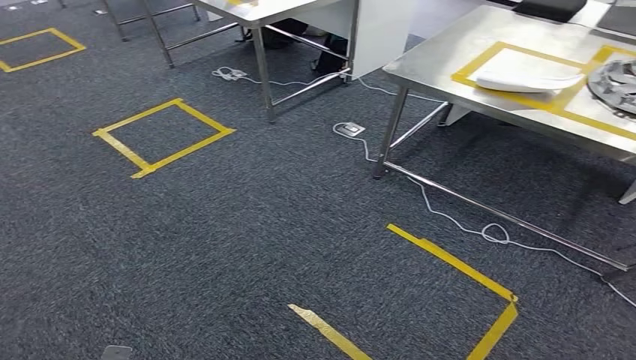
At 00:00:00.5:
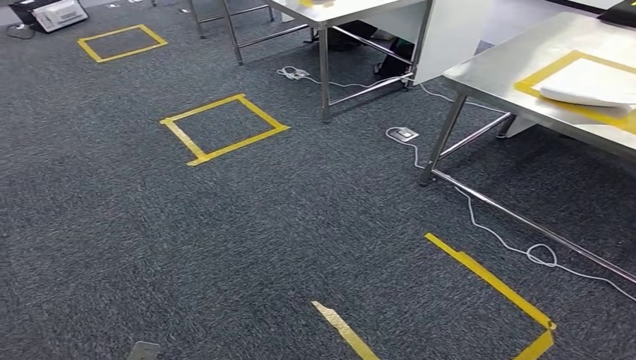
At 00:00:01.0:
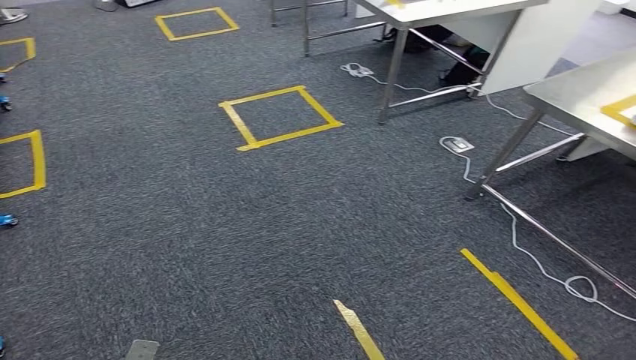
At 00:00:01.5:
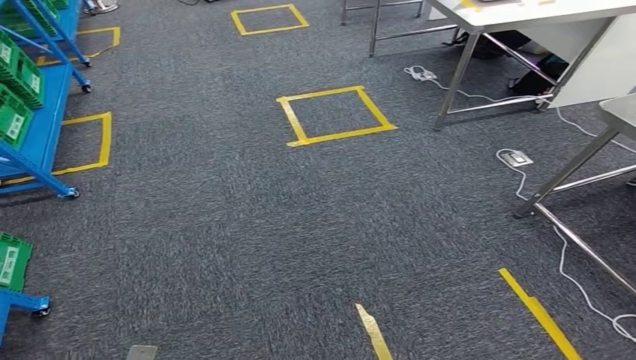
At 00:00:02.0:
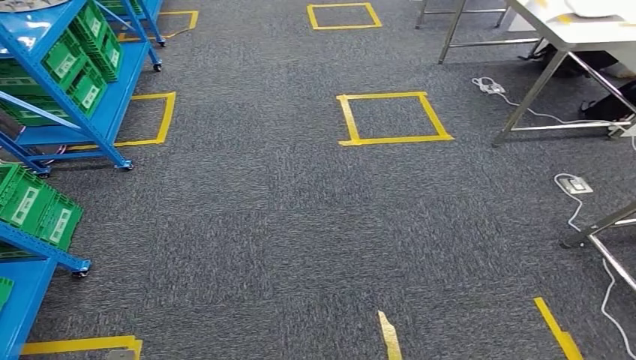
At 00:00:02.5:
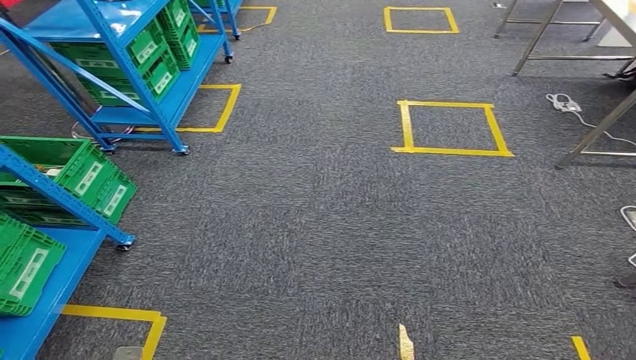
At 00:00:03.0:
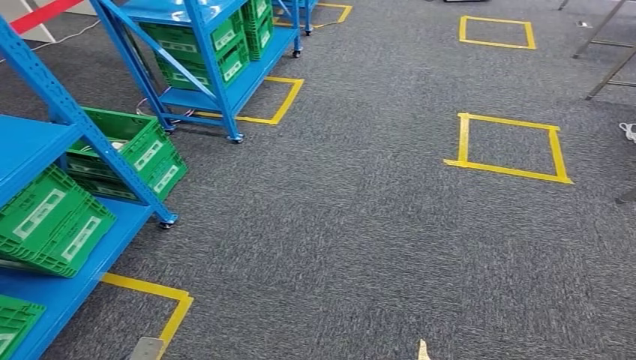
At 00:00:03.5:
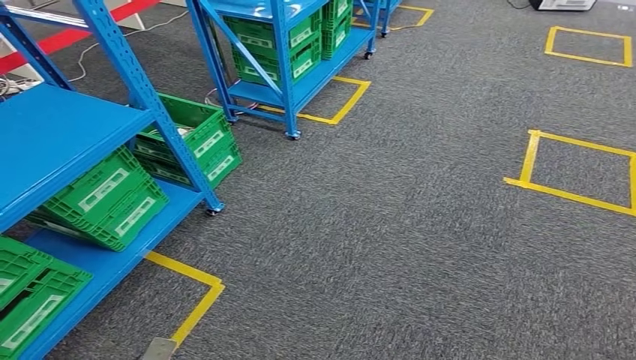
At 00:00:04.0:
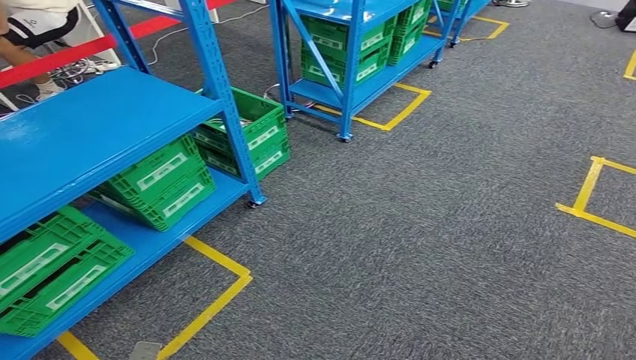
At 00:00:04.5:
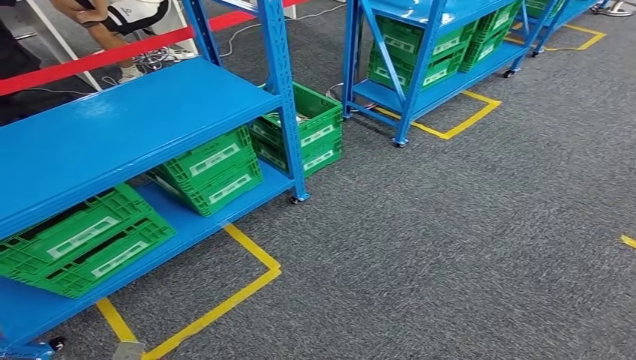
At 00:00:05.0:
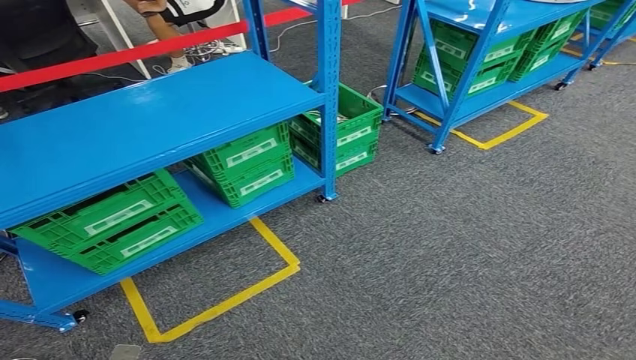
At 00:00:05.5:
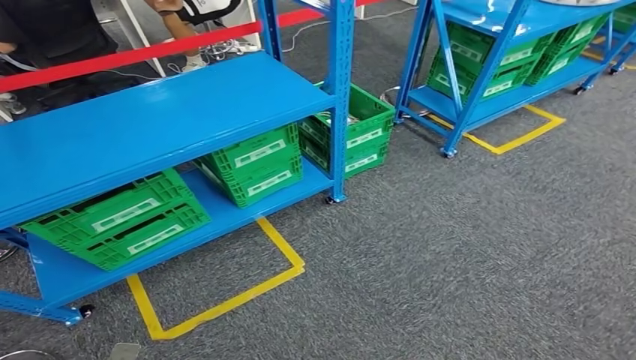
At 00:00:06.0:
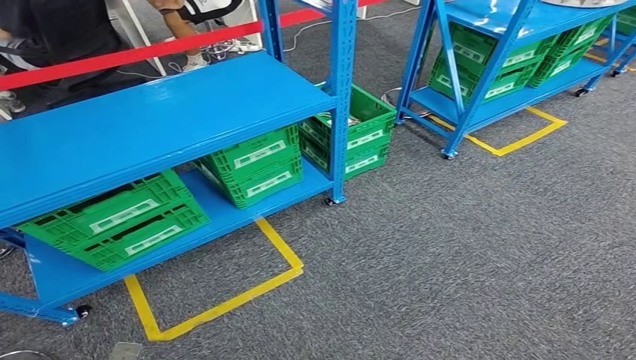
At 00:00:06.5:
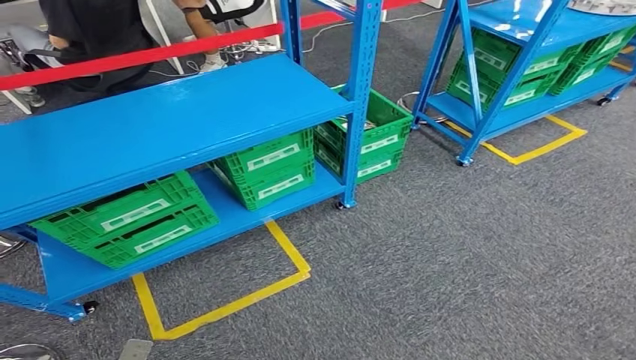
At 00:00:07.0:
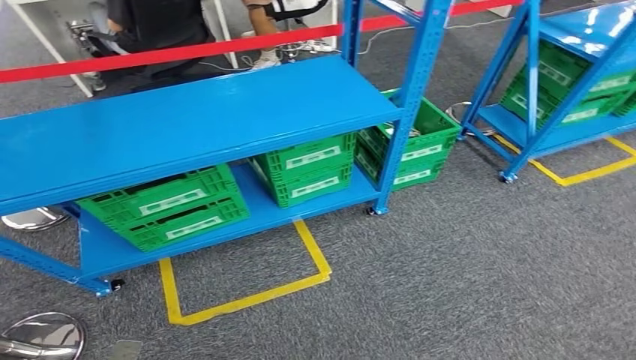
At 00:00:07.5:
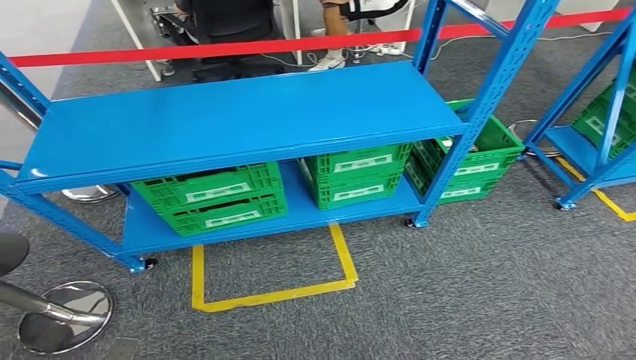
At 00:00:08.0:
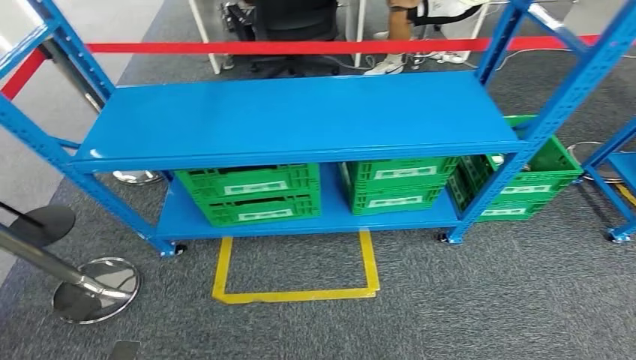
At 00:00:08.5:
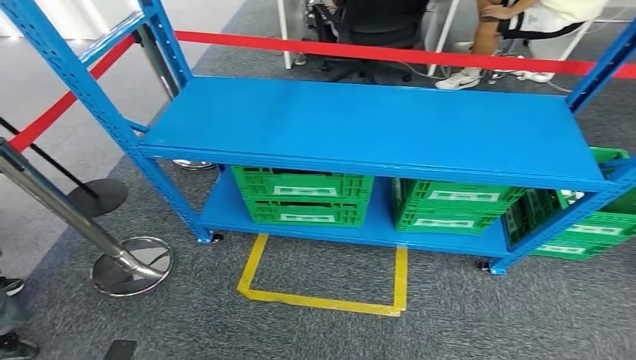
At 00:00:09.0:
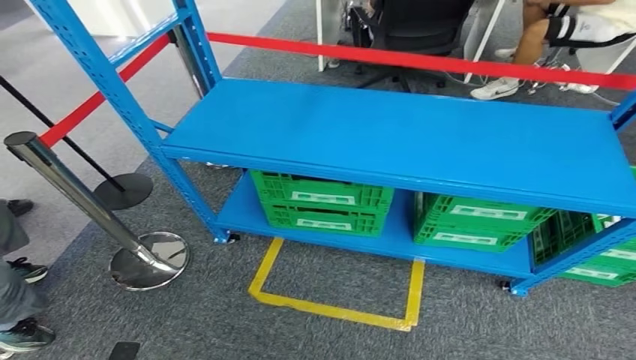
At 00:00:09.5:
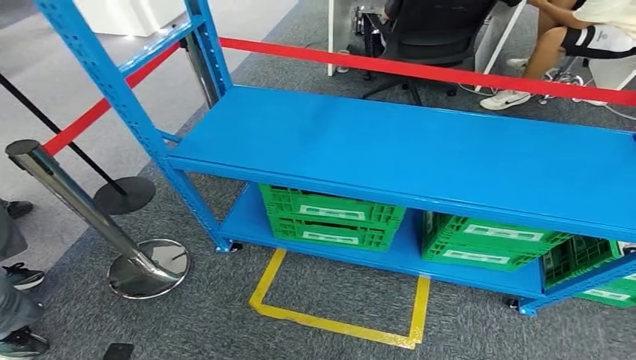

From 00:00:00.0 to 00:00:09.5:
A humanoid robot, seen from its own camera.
Step, from 00:00:00.0 to 00:00:09.0: Move to the initial position at the workbench.

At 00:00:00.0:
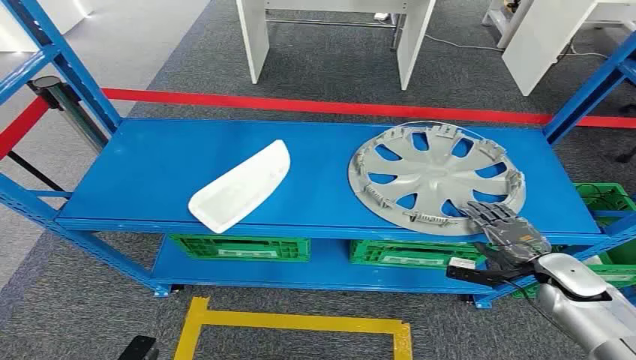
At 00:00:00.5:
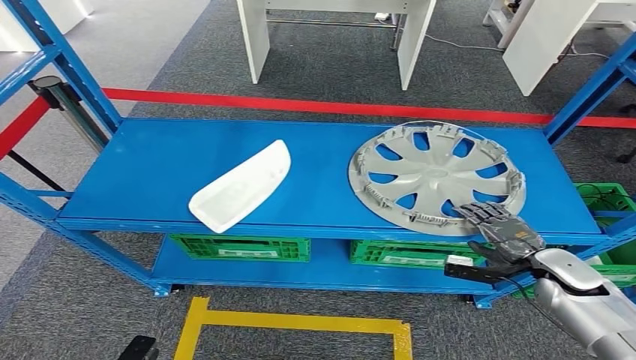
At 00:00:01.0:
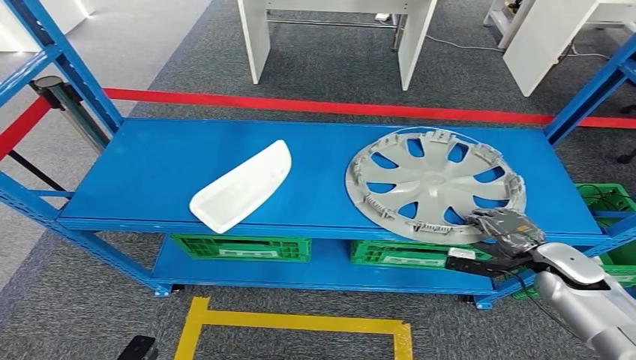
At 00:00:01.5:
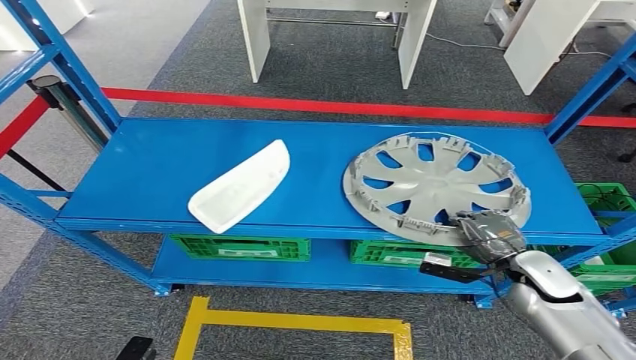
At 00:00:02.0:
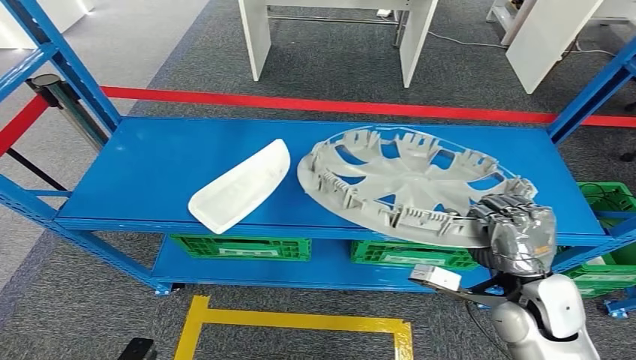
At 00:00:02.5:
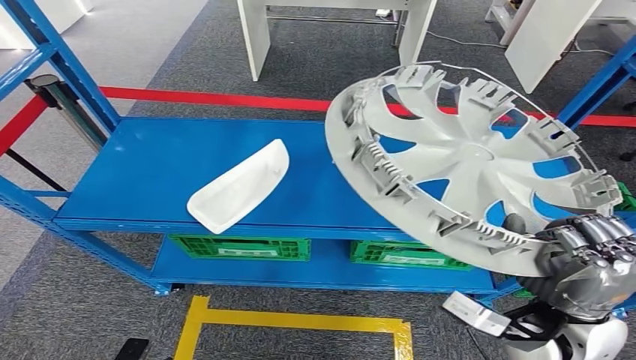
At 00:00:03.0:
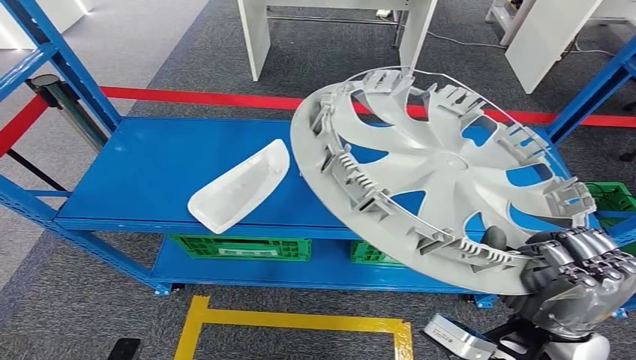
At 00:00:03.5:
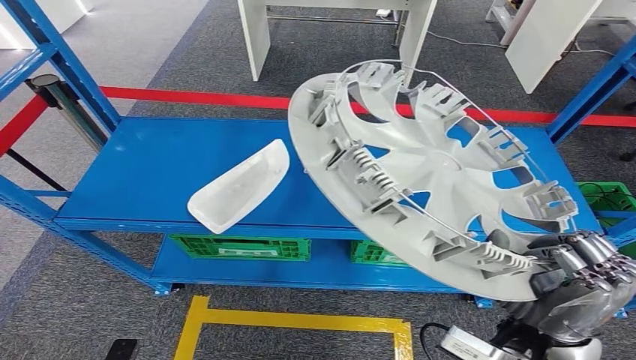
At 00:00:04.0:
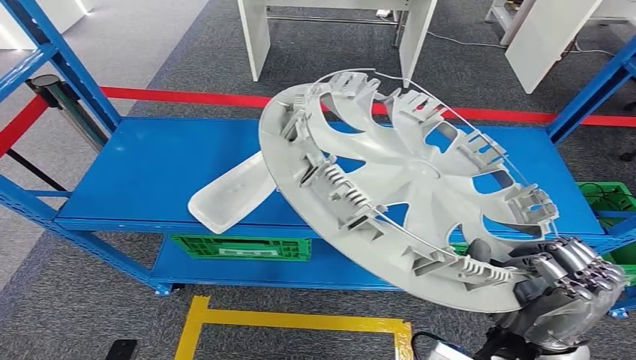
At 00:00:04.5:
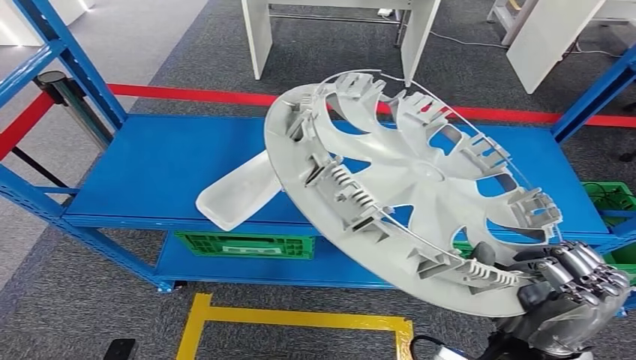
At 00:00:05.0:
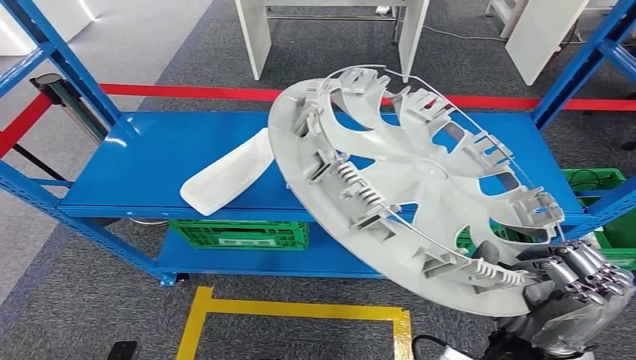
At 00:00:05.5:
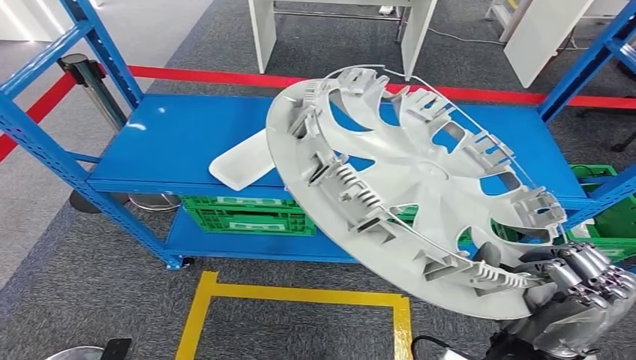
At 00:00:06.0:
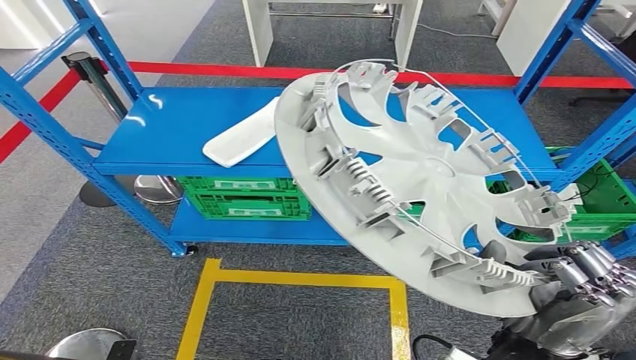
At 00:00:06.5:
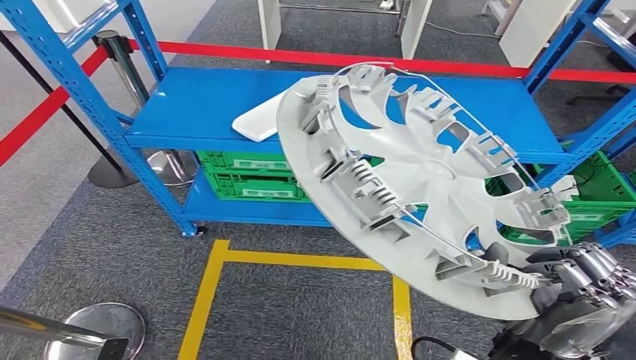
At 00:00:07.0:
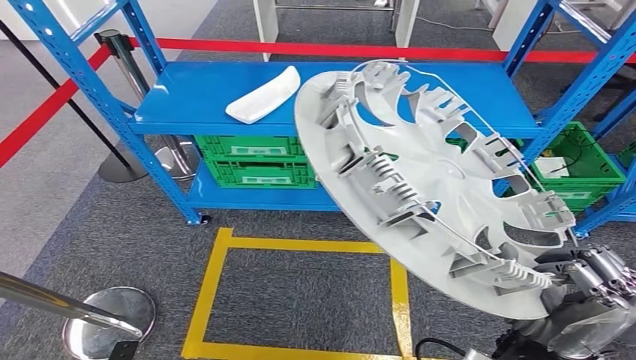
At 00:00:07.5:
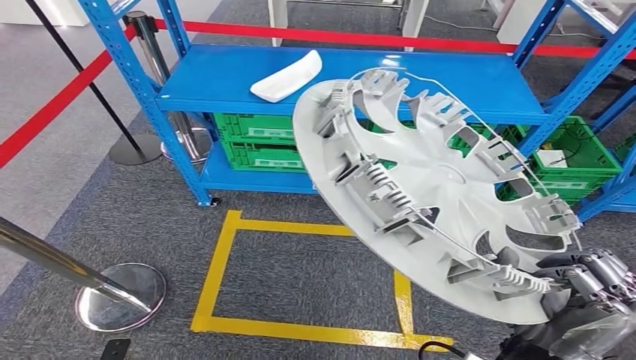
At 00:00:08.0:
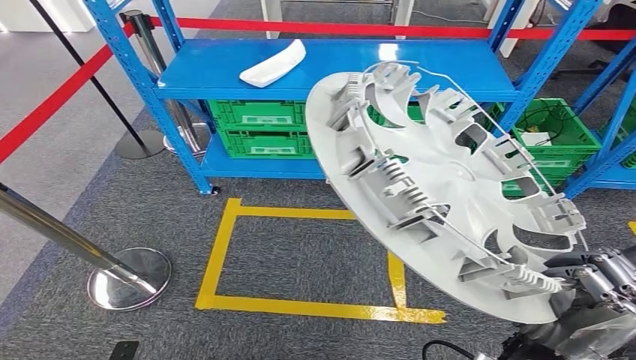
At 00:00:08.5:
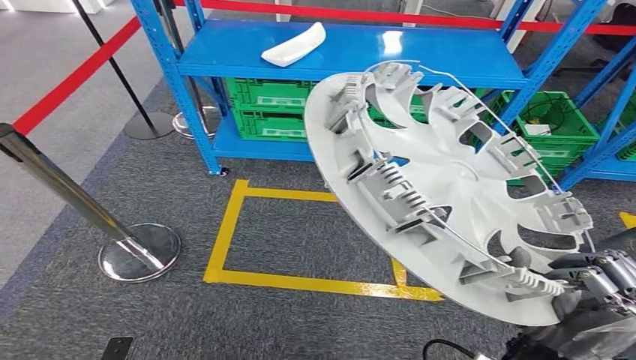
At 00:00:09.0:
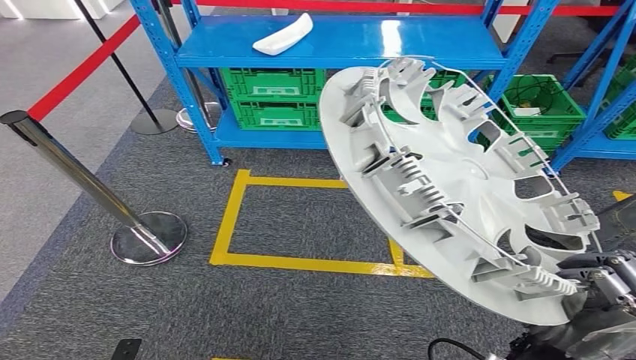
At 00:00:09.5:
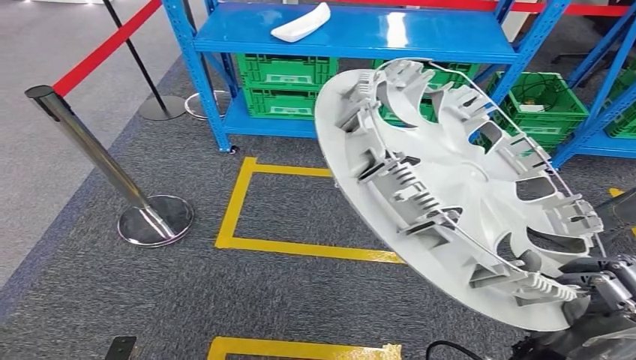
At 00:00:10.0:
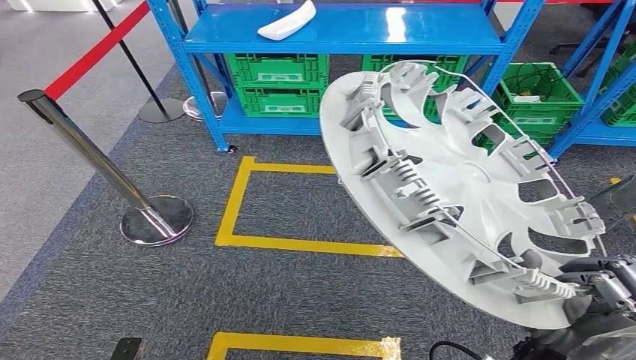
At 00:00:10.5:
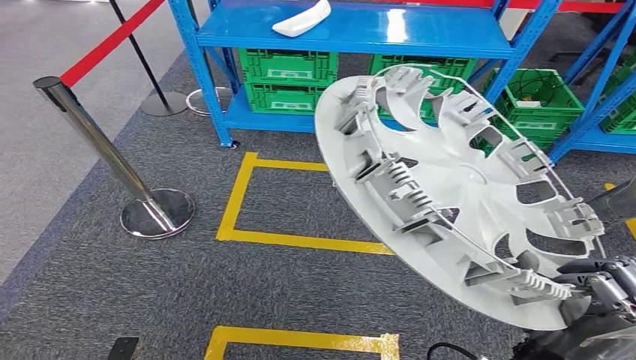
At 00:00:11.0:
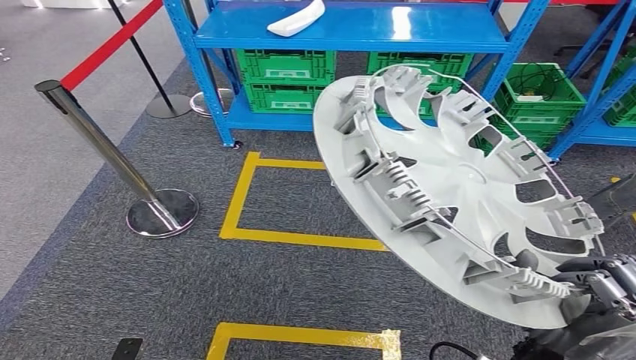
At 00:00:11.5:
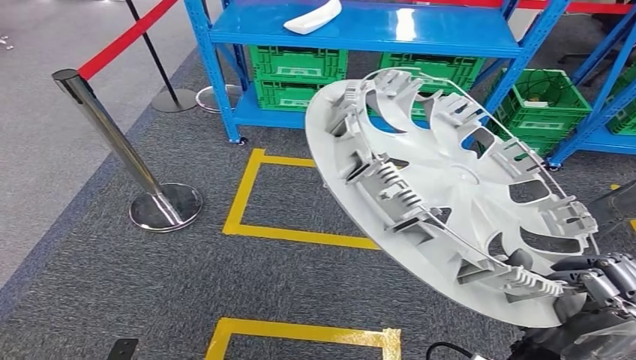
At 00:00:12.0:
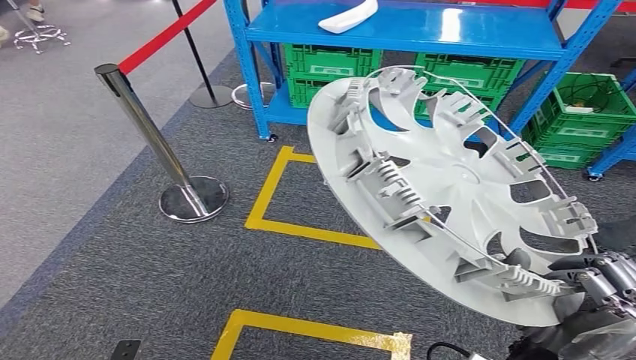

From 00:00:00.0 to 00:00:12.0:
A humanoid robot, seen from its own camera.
Step, from 00:00:00.0 to 00:00:04.5: Pick up the small parts from the shelf.
